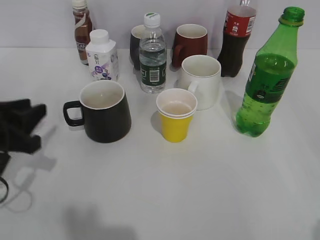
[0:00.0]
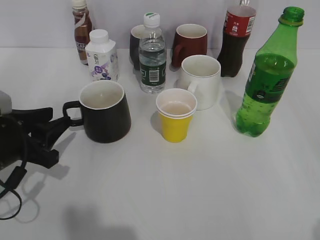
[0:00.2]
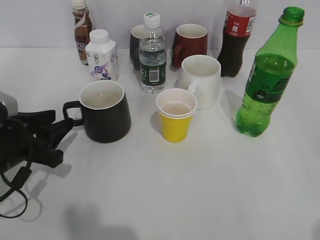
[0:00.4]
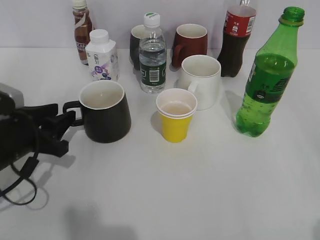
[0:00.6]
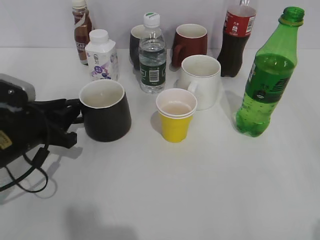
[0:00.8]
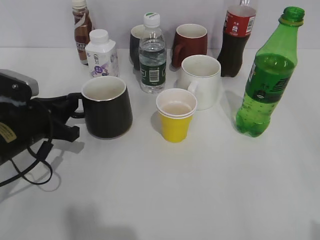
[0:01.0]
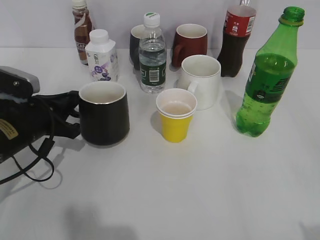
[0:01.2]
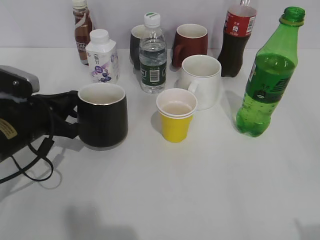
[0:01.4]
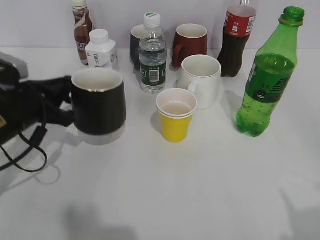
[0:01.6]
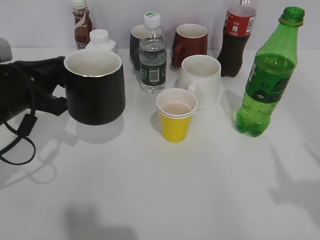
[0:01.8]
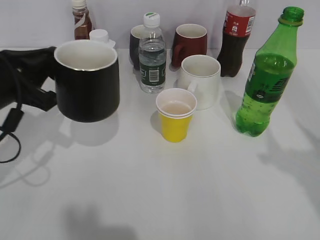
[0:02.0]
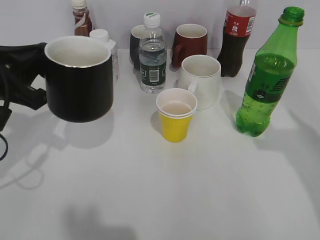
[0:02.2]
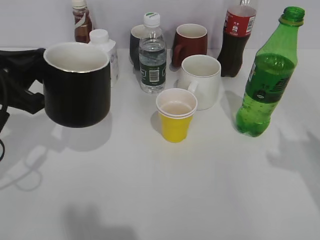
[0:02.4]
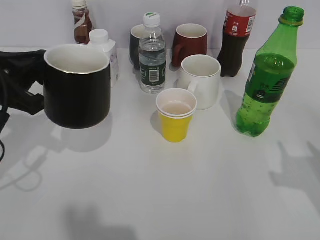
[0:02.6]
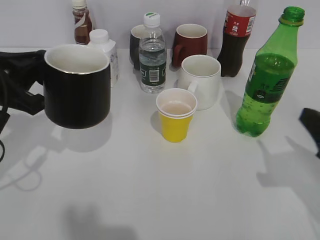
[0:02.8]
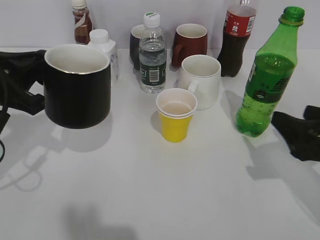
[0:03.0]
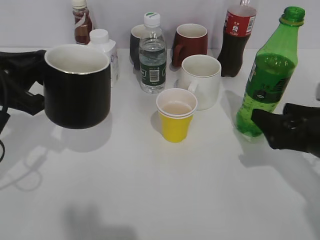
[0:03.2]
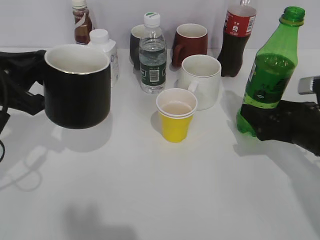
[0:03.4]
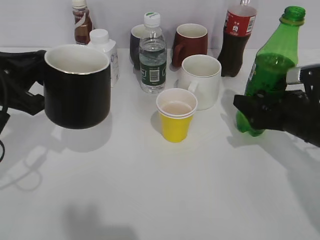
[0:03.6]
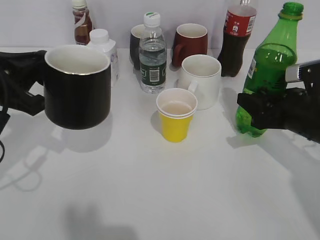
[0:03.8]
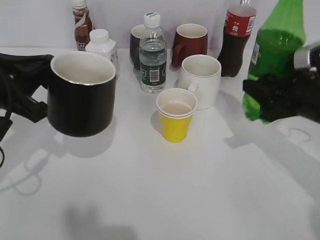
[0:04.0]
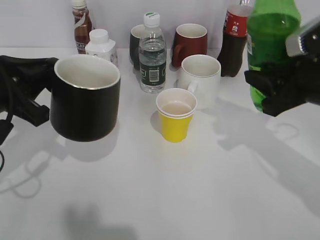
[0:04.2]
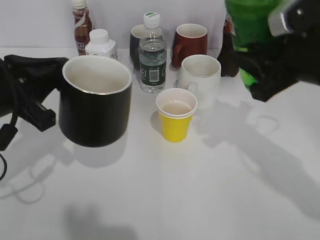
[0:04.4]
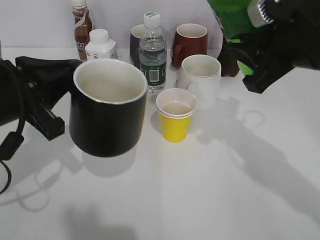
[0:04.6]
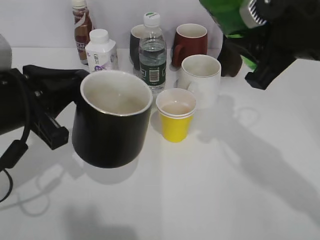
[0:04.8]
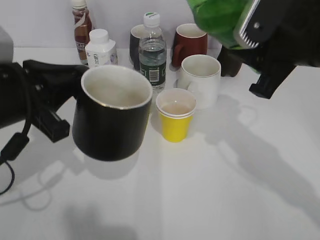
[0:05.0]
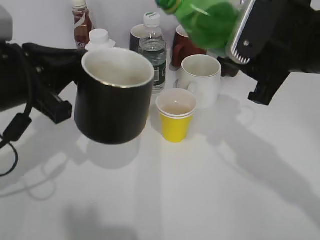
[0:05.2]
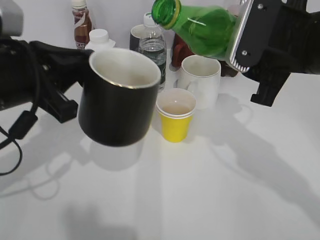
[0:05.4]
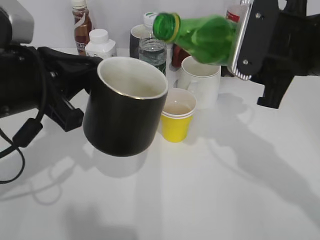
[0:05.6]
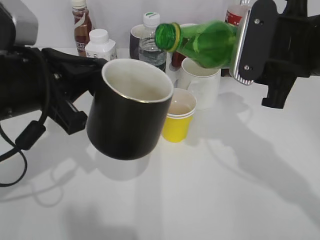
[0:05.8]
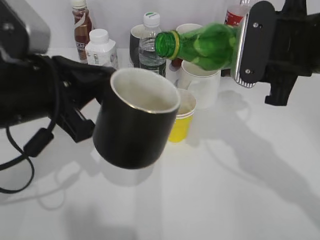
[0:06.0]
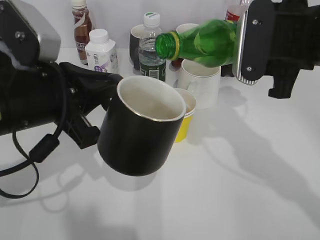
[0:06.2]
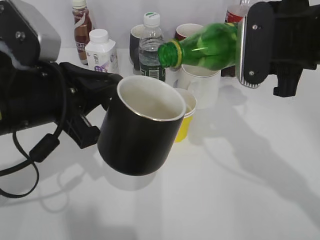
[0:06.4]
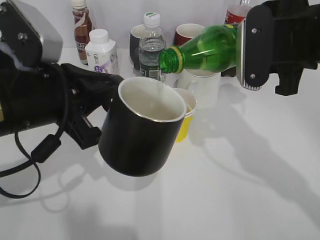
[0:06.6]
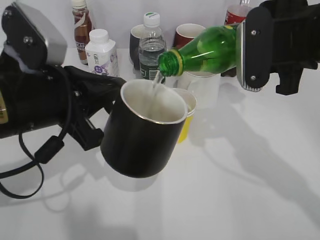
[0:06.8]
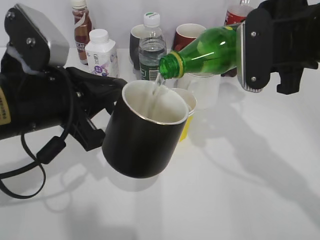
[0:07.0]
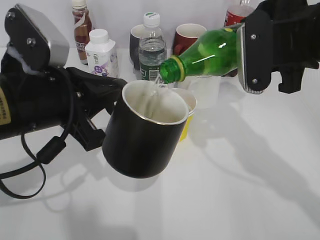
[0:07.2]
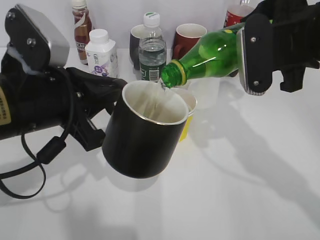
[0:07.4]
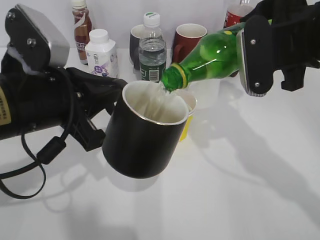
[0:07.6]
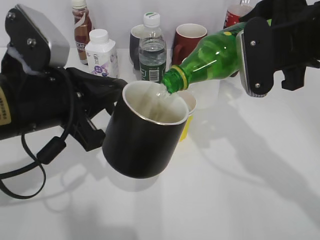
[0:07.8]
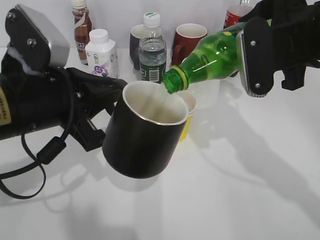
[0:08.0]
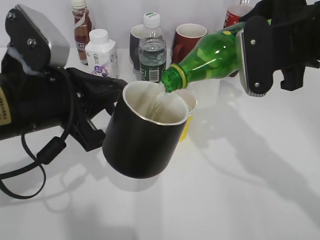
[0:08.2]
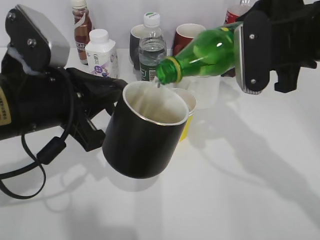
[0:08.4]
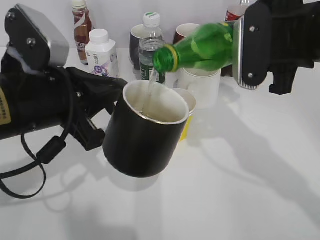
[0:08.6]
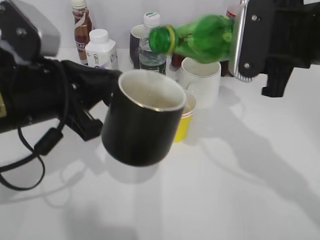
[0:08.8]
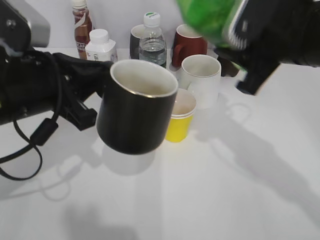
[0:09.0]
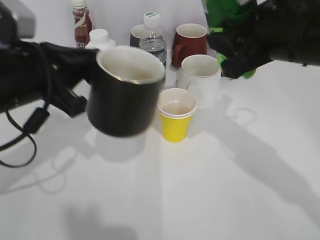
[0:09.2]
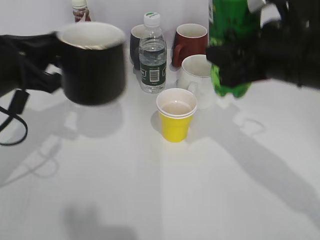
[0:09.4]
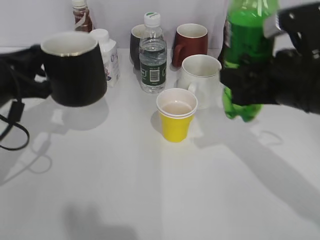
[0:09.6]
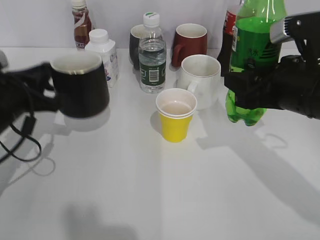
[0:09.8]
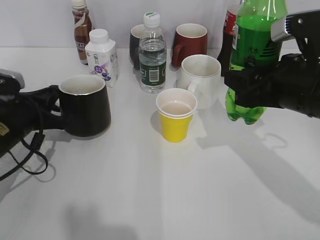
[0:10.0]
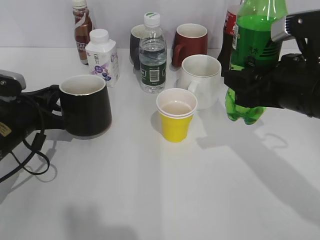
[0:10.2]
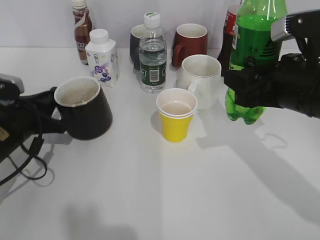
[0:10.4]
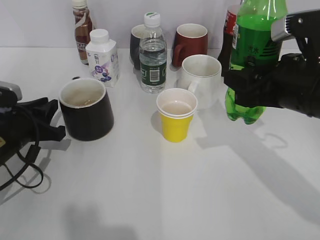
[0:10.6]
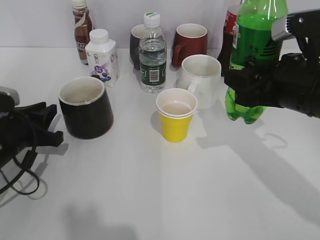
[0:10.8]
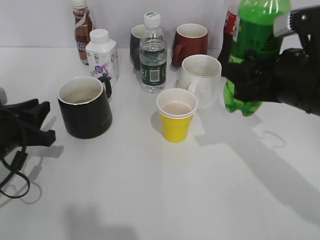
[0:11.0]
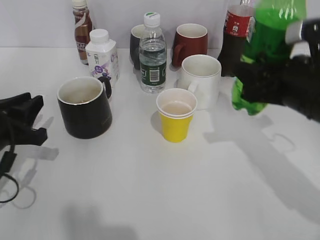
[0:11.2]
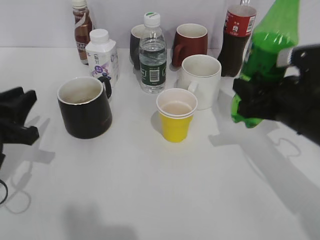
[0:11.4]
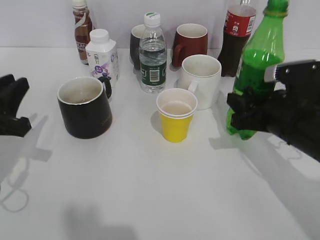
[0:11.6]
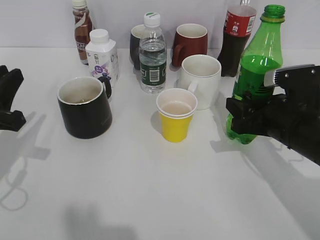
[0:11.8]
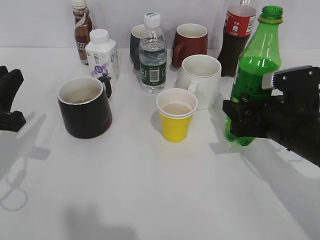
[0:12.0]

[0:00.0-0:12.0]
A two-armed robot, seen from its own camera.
Step, 0:01.2 to 0:02.4: Lift the black cup with left gripper.
Step, 0:02.6 to 0:03.6: Grasp the bottle with sprite with right gripper.
Step, 0:04.0 to 0:08.8: Pour the sprite from bottle to cup with right gripper.
Step, 0:09.0 to 0:10.8: Place the black cup on the table with left gripper.
0:00.0 to 0:01.6: The left gripper goes some 5 cm forward, and closes.
0:01.6 to 0:03.0: The left gripper goes some 10 cm upward, while the right gripper shifts about 20 cm forward and downward.
0:03.0 to 0:04.4: The right gripper goes approximately 15 cm upward, to the left and forward, and closes.
0:04.4 to 0:06.0: The left gripper shifts about 5 cm to the right.
0:09.0 to 0:10.4: The right gripper heads downward, covering approximately 5 cm, while the left gripper heads downward, to the left and forward, covering roughly 15 cm.
0:10.4 to 0:12.0: The right gripper shifts approximately 10 cm downward, and opens its fingers; the left gripper moves backward and upward, some 10 cm.

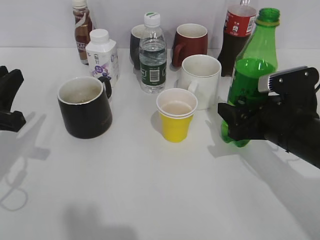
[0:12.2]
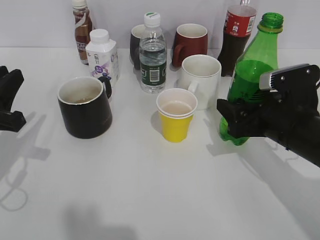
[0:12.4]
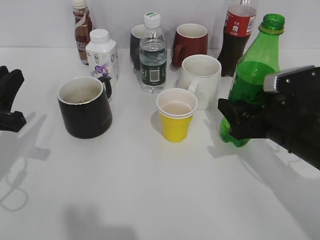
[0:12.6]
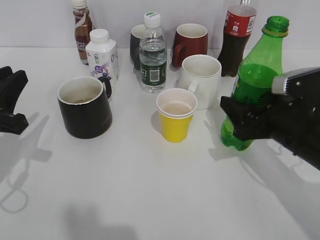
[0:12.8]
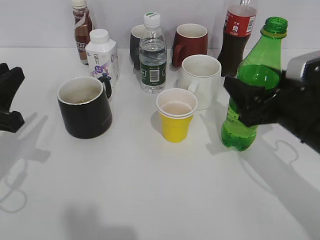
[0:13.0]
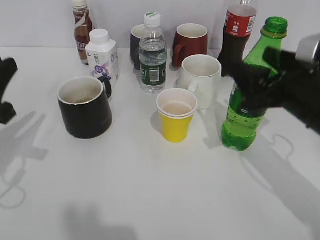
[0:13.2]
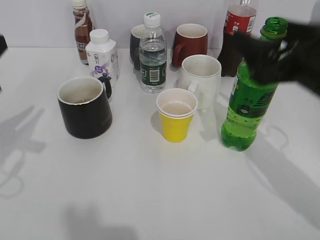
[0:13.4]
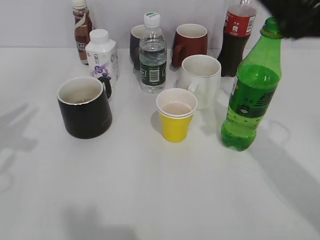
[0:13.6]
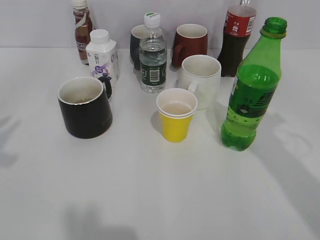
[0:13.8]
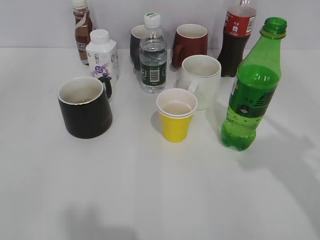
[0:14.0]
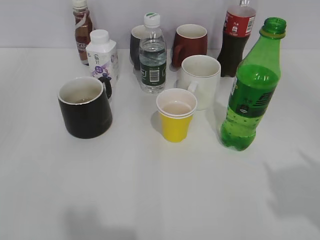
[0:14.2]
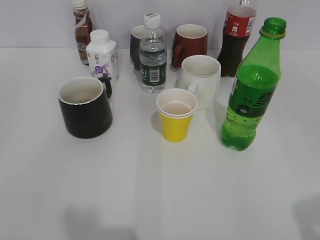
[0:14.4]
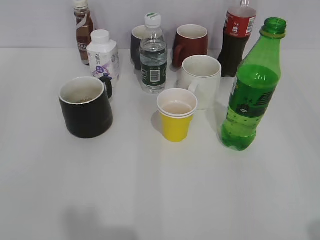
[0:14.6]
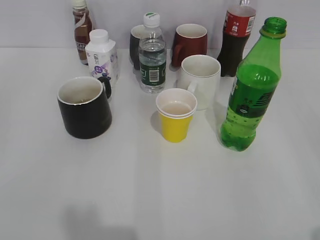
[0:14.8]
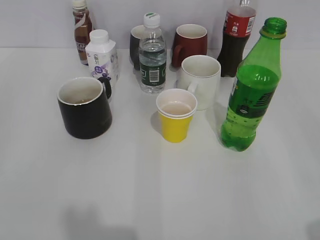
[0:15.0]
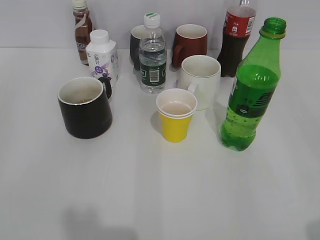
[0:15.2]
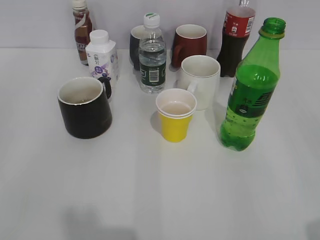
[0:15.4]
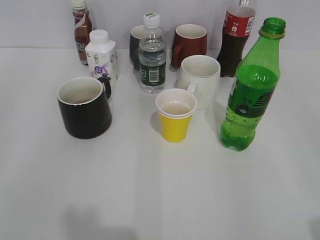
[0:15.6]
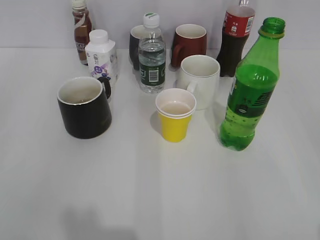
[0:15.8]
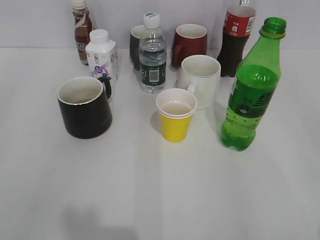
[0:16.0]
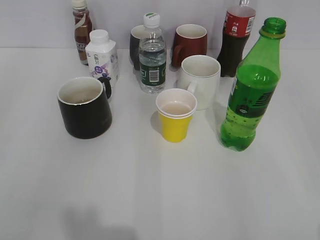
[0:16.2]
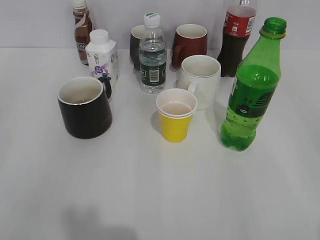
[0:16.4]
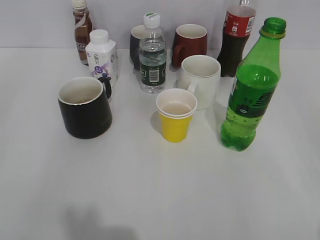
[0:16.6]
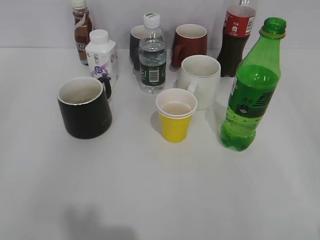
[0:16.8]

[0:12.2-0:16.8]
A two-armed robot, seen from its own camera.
0:12.2 to 0:13.8: Both grippers travel together upward, some 20 cm.
